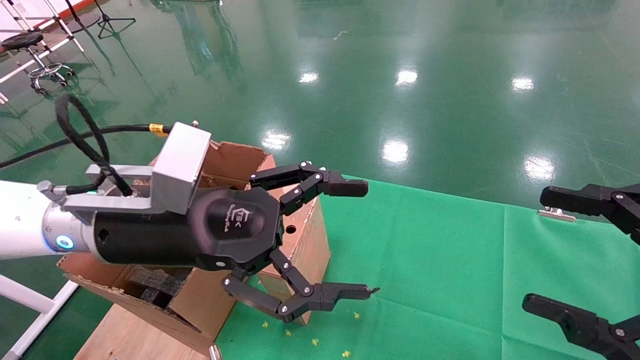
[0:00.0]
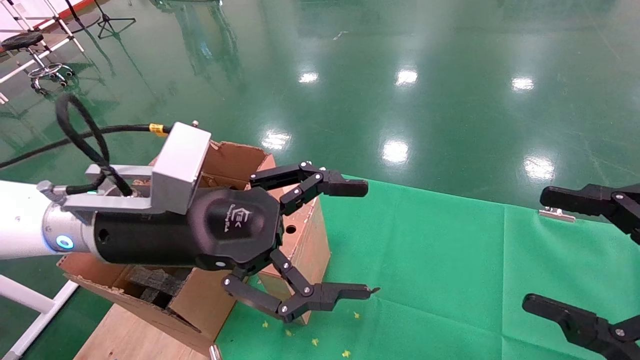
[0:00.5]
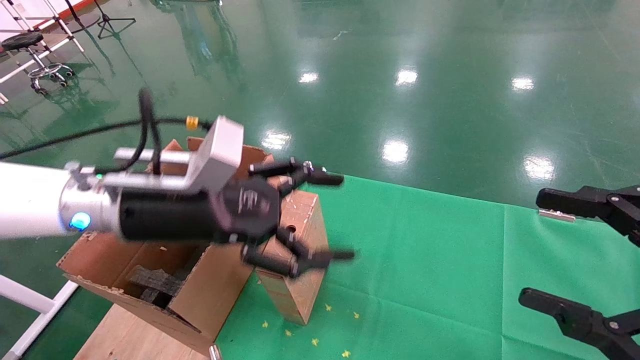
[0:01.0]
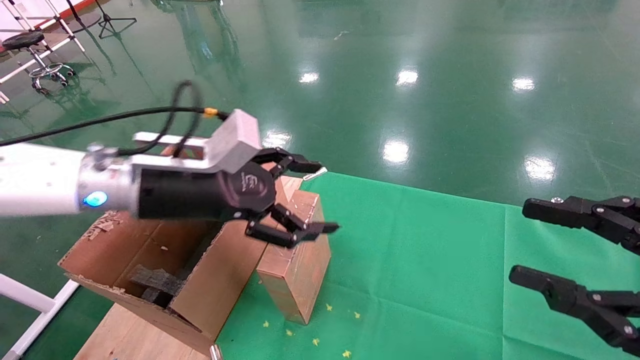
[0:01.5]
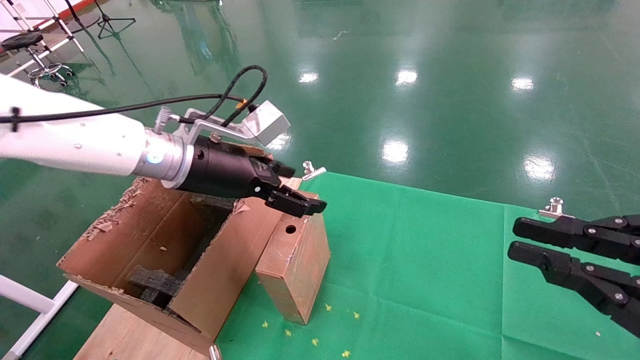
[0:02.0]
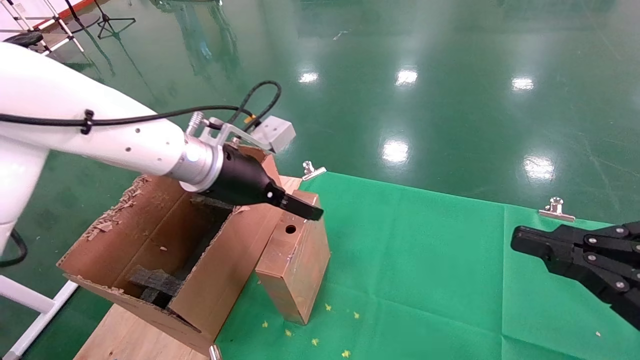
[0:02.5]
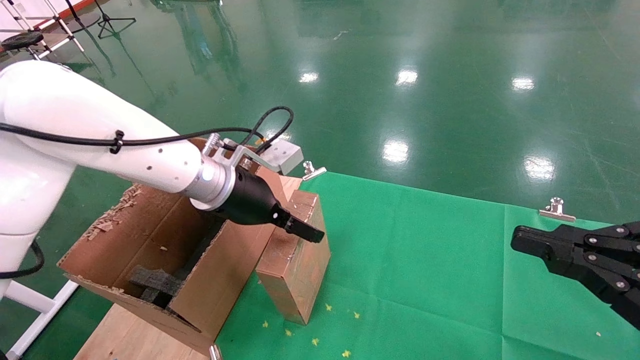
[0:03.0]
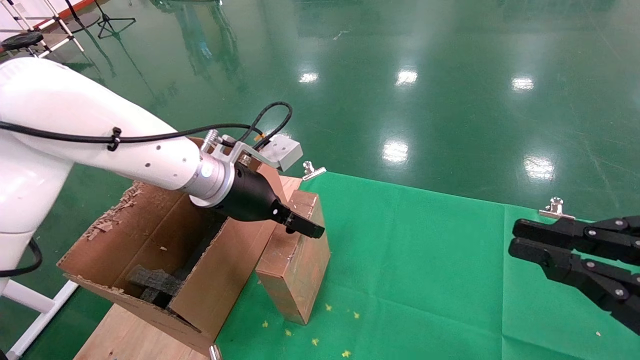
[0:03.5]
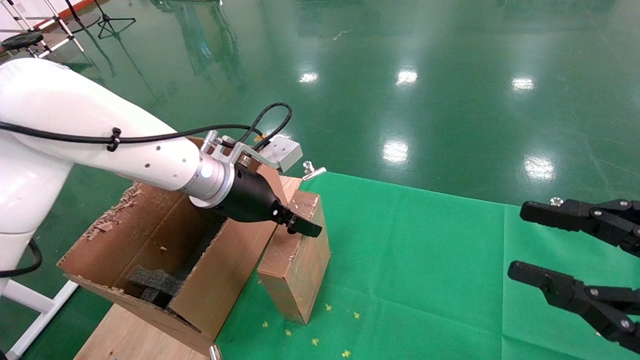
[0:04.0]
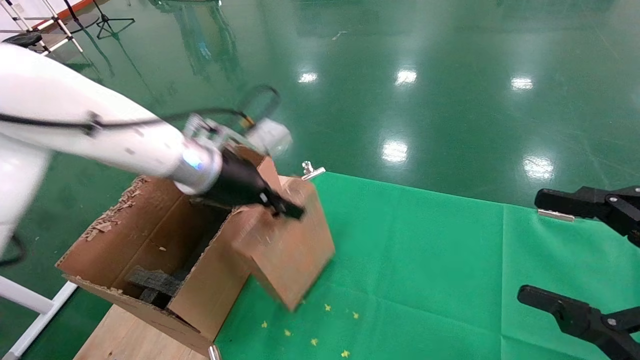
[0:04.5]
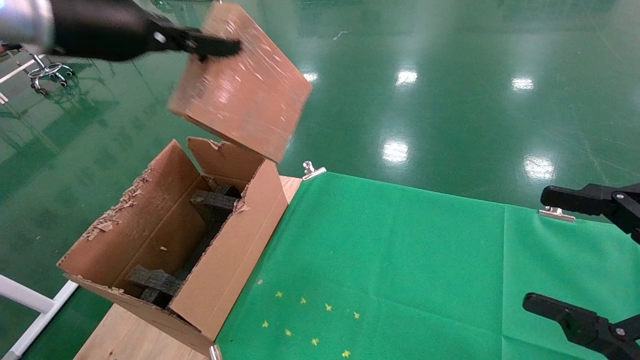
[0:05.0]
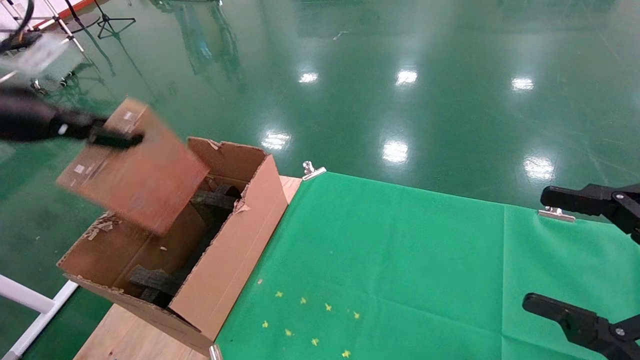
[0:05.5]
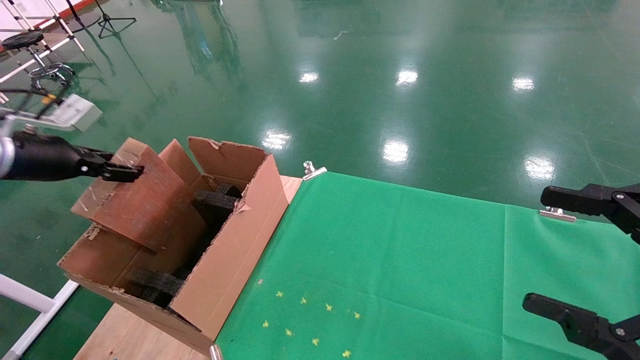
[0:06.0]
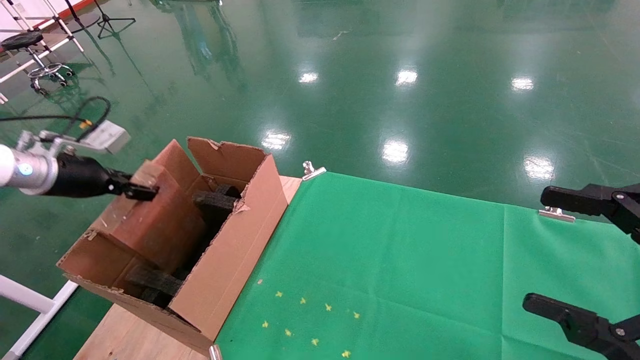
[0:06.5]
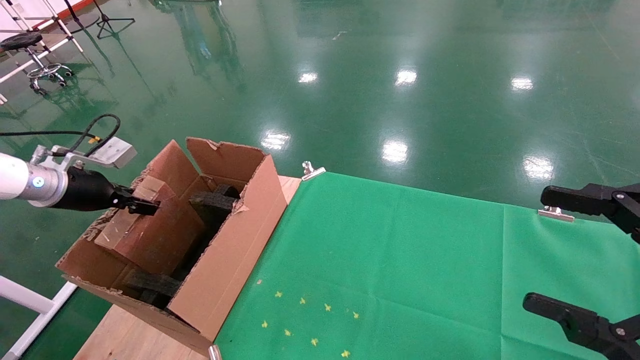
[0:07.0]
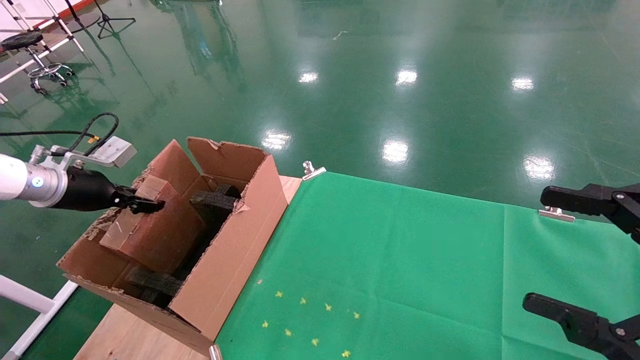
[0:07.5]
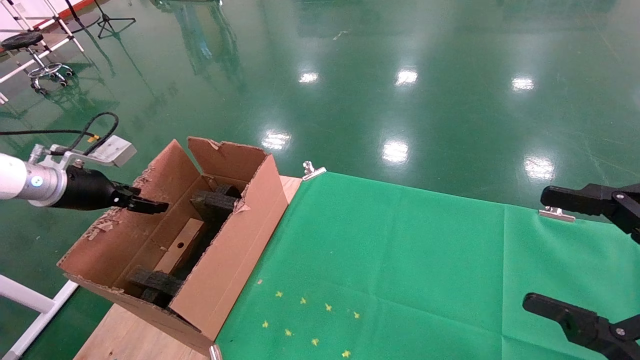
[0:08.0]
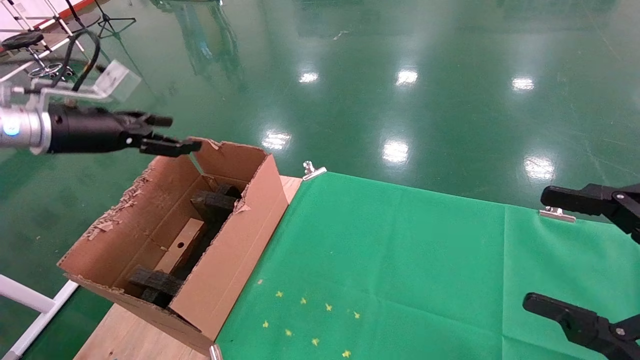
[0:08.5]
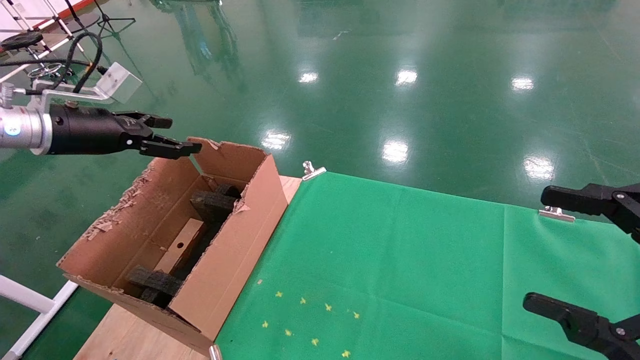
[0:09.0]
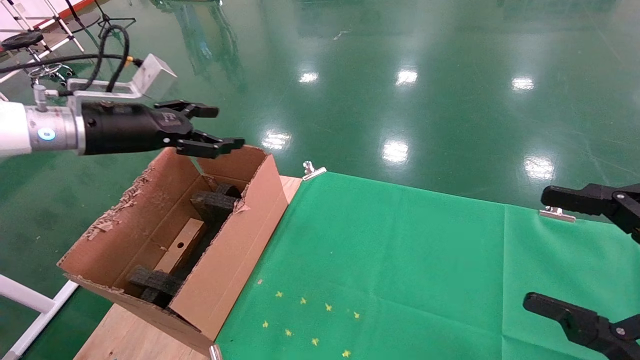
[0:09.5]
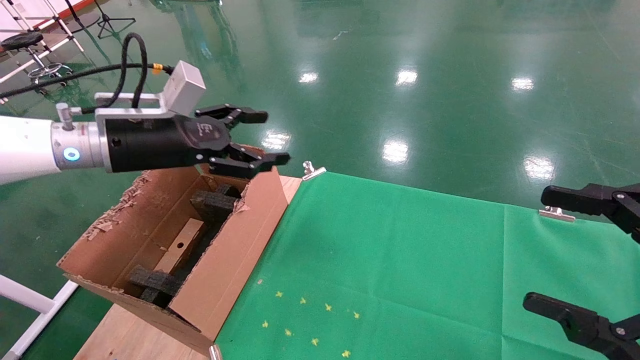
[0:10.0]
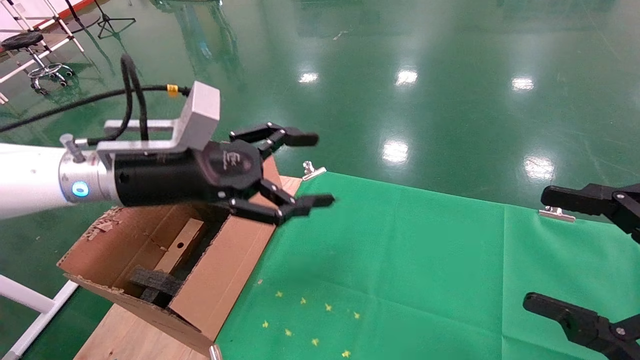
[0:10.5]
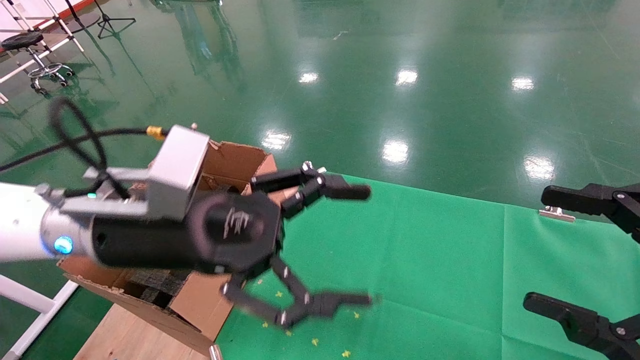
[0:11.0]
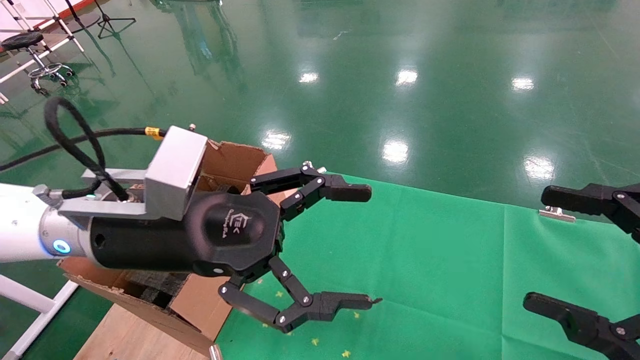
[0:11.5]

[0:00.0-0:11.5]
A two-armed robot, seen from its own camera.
Task of the whole recording: using a robotic arm to pick up a cardboard box and palace it the carton.
Step, 0:01.5 to 0:04.0: Pick up the mouse and the power cord paper box.
Step, 0:04.5 to 0:07.5: Place the mouse and the power cord paper box into the container.
0:00.0 to 0:02.0: The right gripper closes up; the left gripper moves forward, about 10 cm.
0:04.0 to 0:06.0: The left gripper is displaced to the left by roughly 30 cm, and closes up. Meanwhile the right gripper opens.
0:06.0 to 0:07.5: The left gripper is displaced downward by roughly 5 cm.
0:07.5 to 0:09.5: The left gripper travels to the right and upward by approximately 15 cm, and opens its fingers.
0:09.5 to 0:11.5: The left gripper moves to the right and backward, approximately 20 cm.

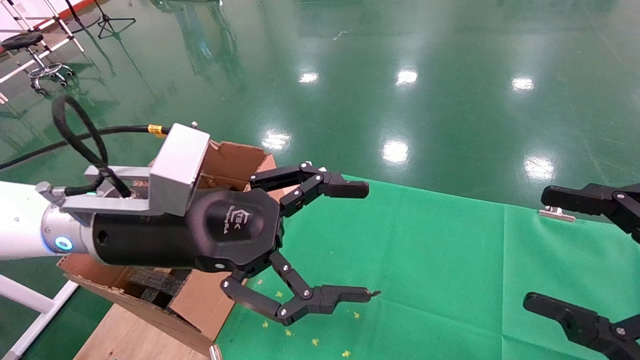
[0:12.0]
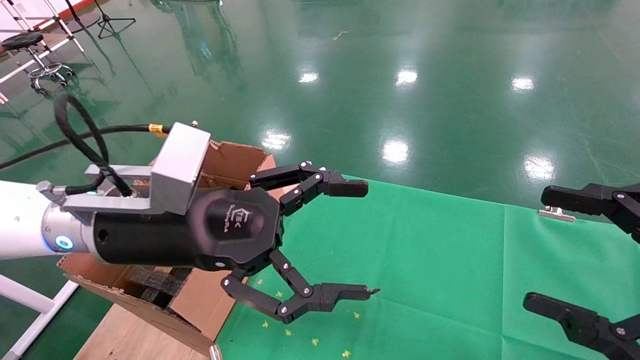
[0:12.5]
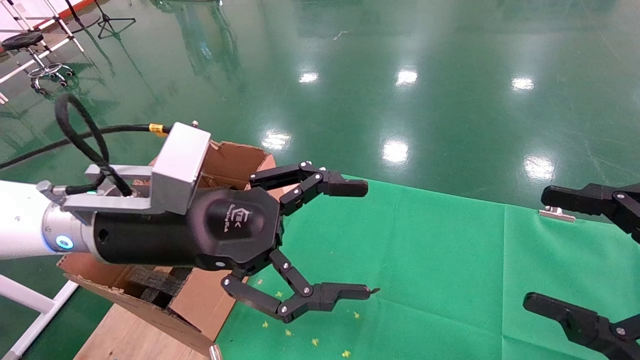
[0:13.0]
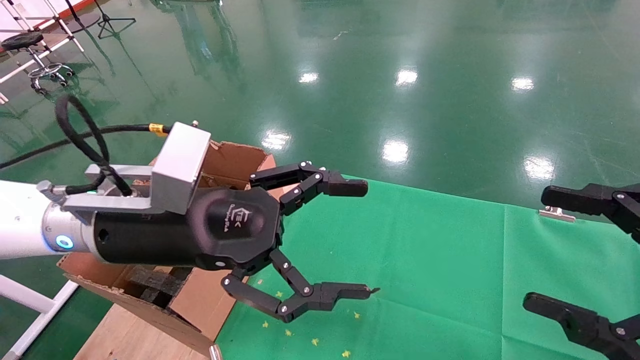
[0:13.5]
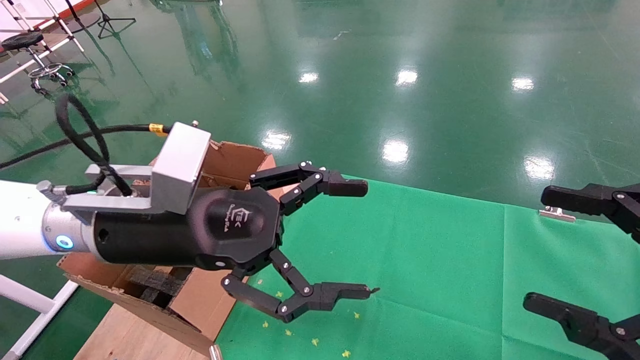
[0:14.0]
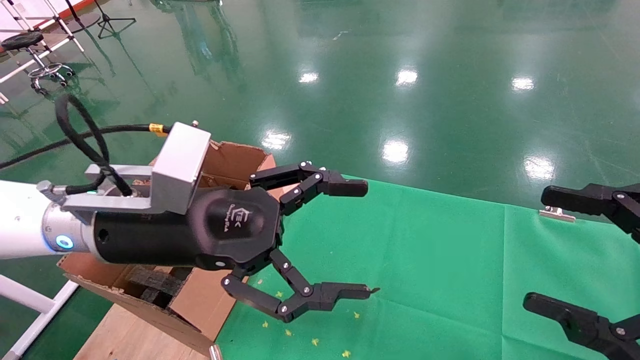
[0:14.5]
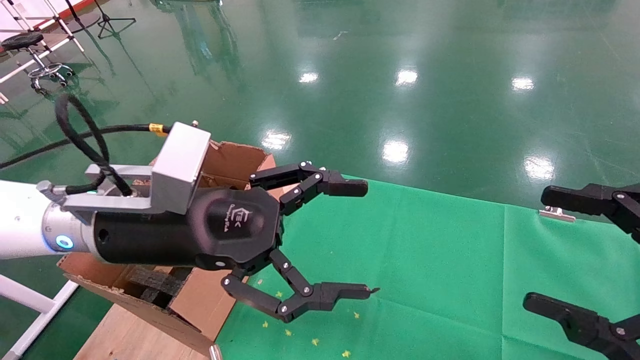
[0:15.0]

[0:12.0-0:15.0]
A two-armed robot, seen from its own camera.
Task of the whole recording: using a robotic arm to pick up a cardboard box and palace it the carton.
0:12.0 to 0:15.0: Neither gripper changes place.
